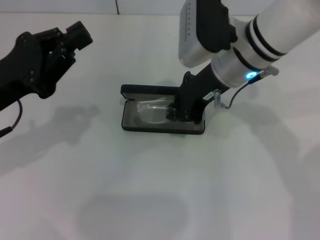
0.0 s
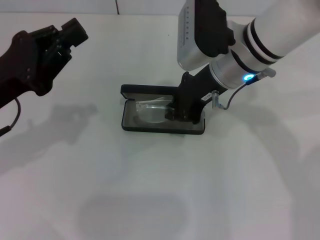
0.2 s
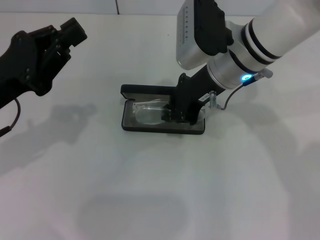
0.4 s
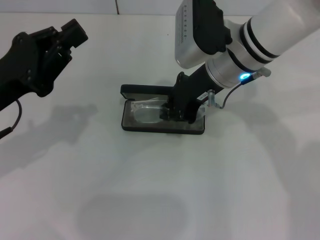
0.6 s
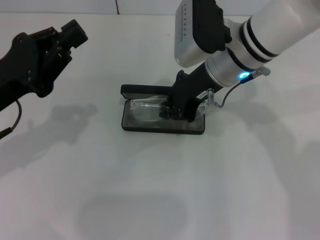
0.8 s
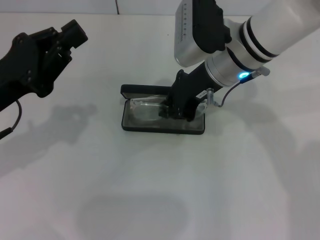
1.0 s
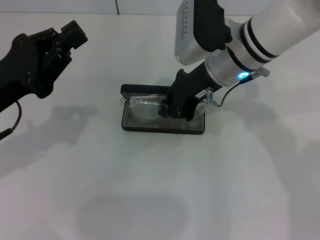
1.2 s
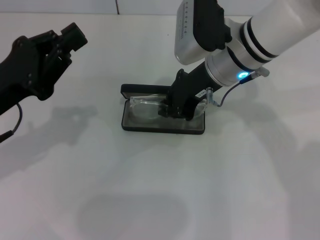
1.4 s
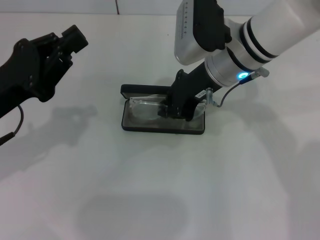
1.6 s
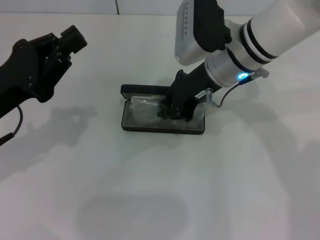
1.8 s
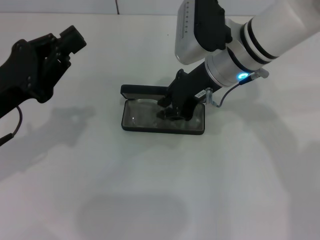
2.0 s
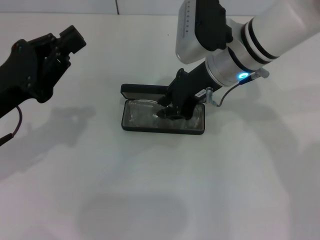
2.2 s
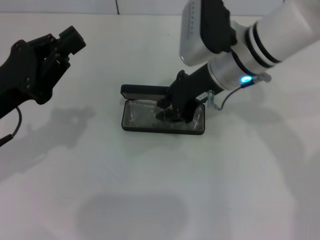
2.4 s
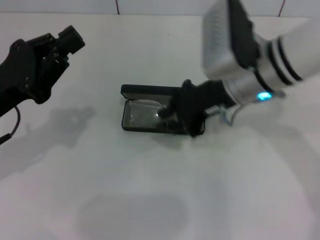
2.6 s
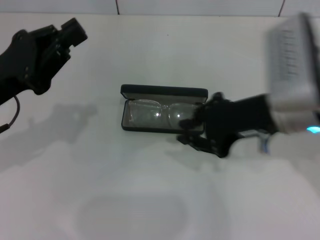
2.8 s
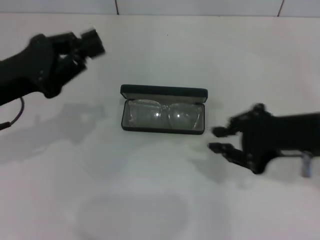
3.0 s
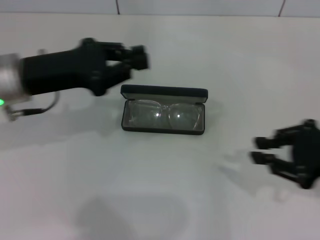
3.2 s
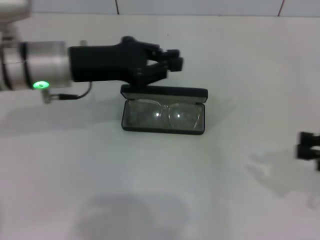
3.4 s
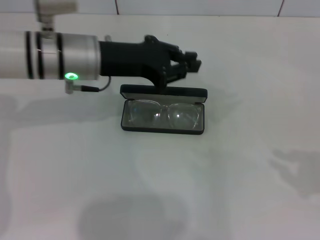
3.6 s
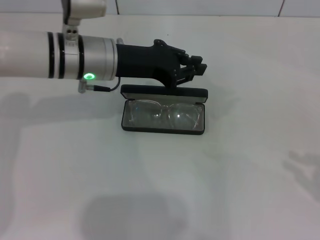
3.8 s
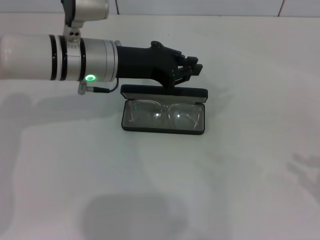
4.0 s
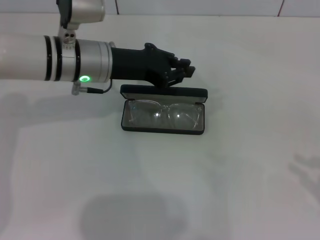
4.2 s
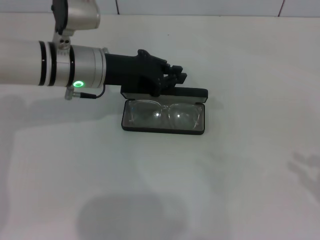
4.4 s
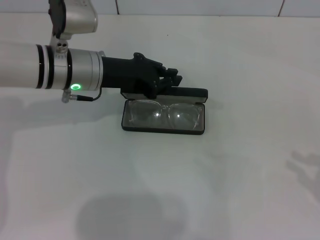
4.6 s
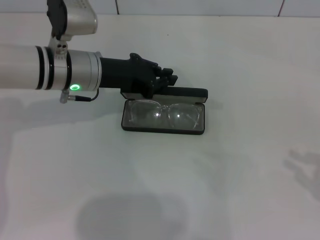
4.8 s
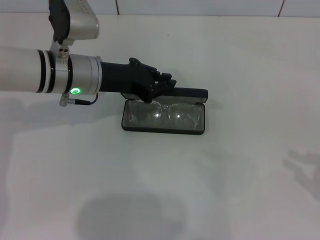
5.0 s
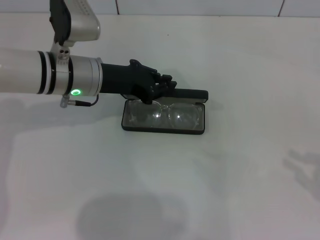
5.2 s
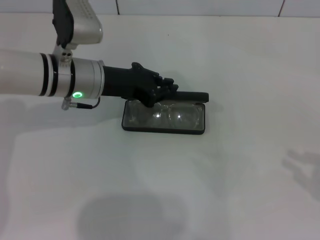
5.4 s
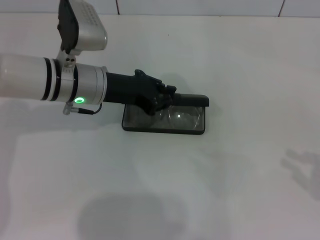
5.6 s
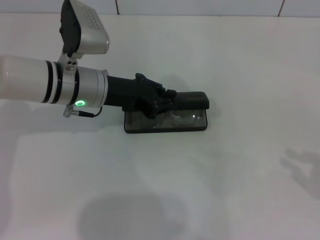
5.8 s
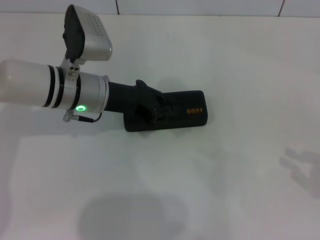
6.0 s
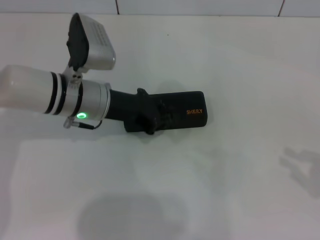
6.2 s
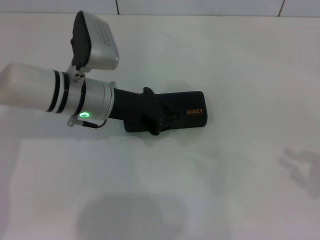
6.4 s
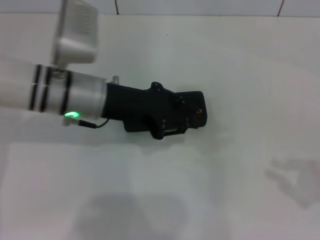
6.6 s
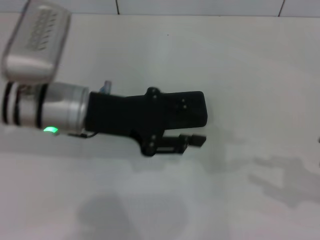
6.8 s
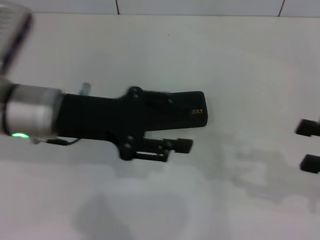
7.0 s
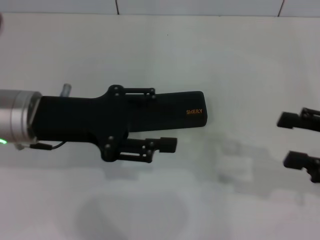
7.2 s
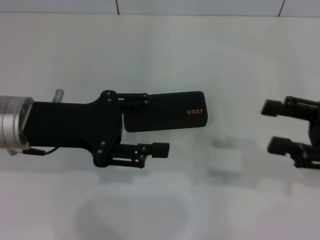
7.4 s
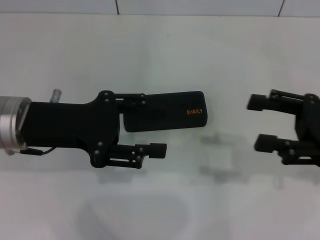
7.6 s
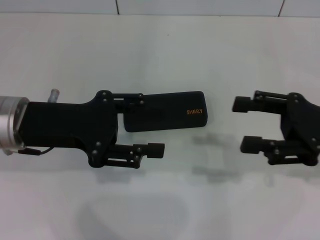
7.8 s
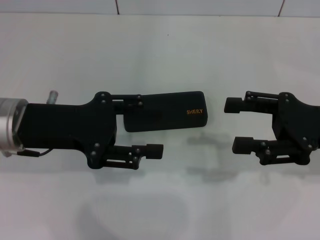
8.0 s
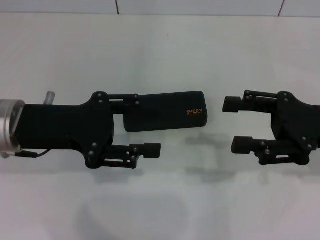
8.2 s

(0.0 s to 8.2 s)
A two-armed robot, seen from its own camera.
Step, 0.0 s - 2.4 s: Put the glasses into the case with your right hand.
Step, 2.6 s - 6.4 s: Close the glasses case with your left hand.
0.0 s - 1.6 s: The two grippers keep their place.
1.6 s - 3.2 s: The right gripper heads to the right and backward, covering about 25 cm, while the left gripper goes about 5 cm forward.
3.2 s - 5.0 s: The left gripper travels to the right and forward by about 10 cm. Meanwhile the right gripper shifts approximately 15 cm to the right and backward.
5.0 s - 6.6 s: The left gripper moves approximately 5 cm.
6.6 s - 8.2 s: The right gripper moves to the left and forward, roughly 15 cm, and opens up. Meanwhile the left gripper travels to the left and backward by about 10 cm, and opens its fingers.

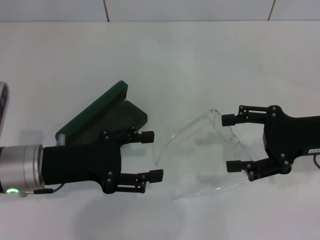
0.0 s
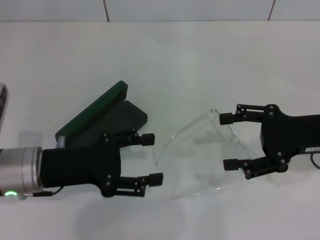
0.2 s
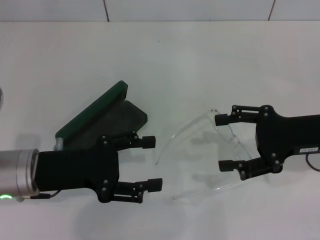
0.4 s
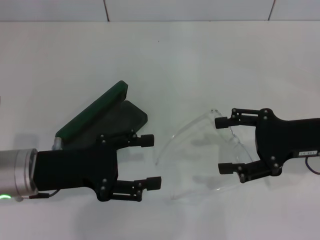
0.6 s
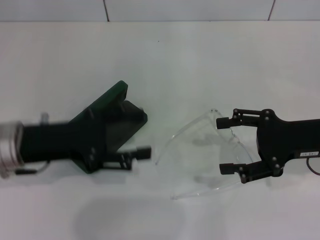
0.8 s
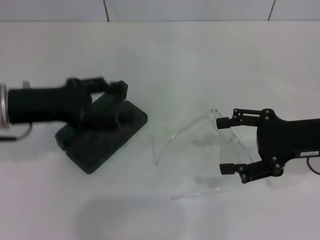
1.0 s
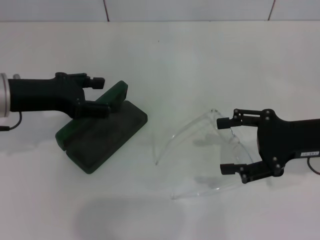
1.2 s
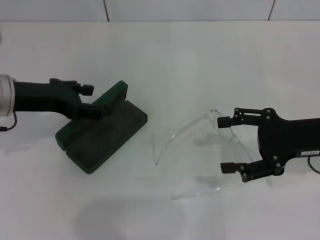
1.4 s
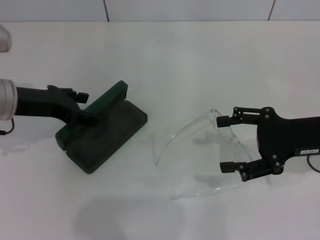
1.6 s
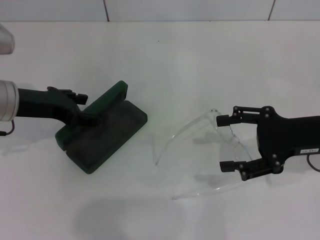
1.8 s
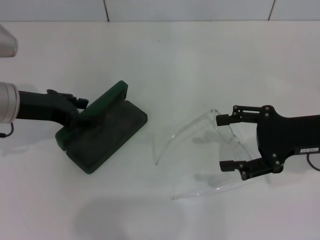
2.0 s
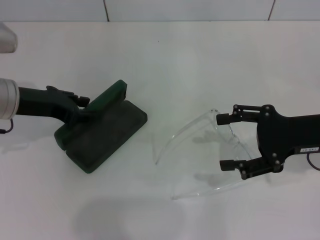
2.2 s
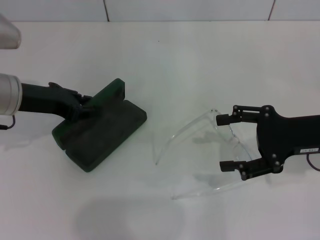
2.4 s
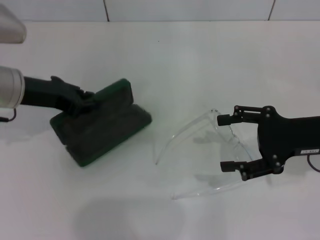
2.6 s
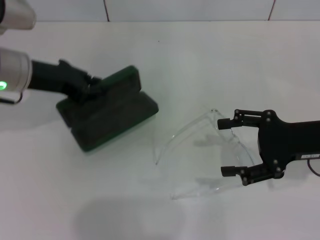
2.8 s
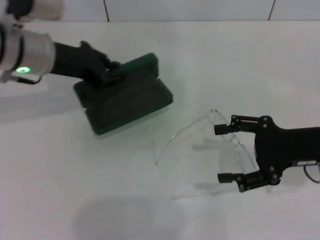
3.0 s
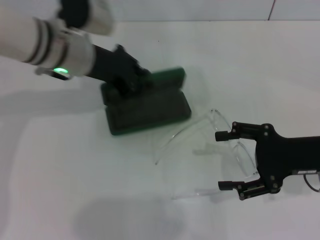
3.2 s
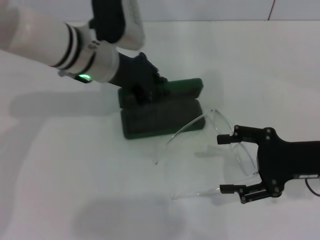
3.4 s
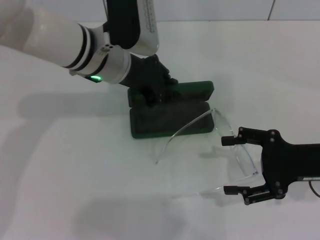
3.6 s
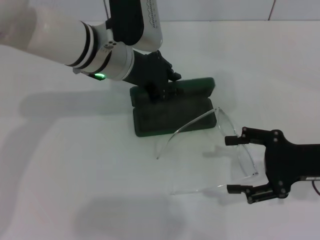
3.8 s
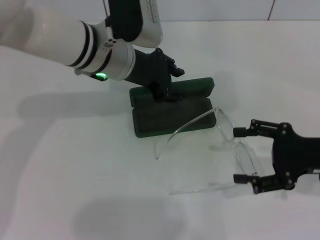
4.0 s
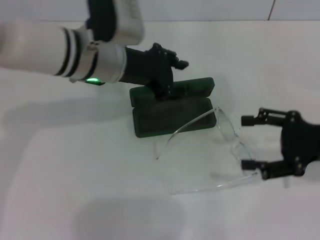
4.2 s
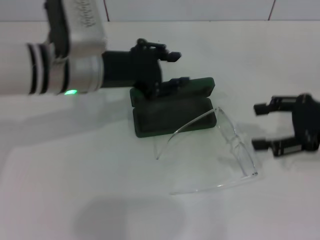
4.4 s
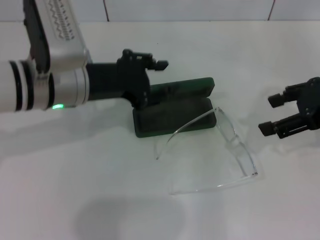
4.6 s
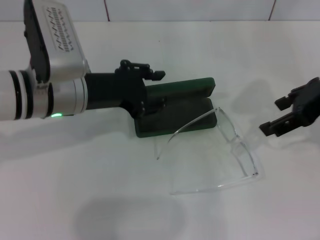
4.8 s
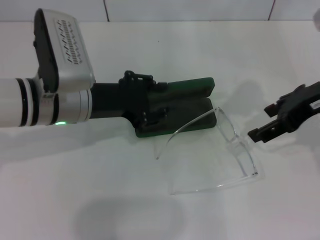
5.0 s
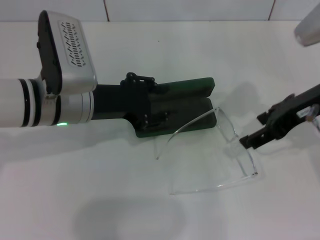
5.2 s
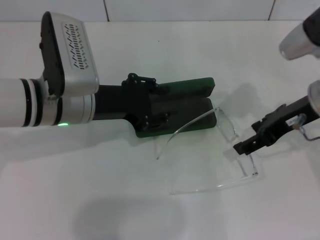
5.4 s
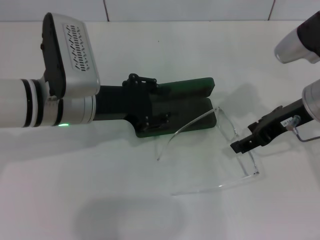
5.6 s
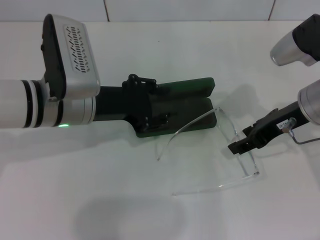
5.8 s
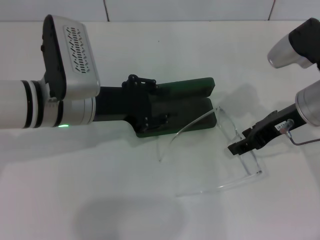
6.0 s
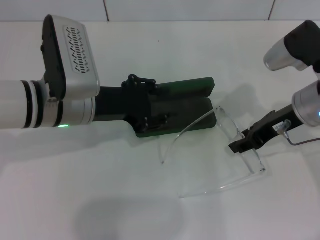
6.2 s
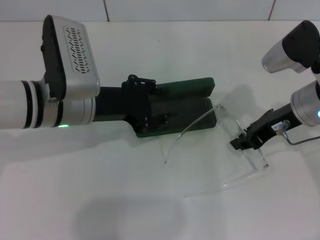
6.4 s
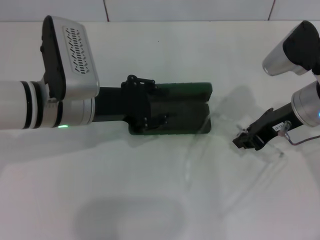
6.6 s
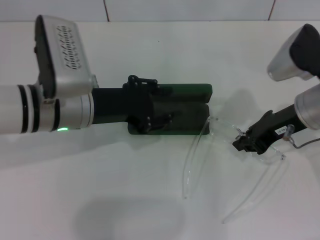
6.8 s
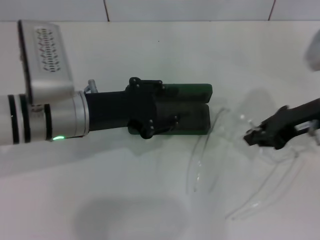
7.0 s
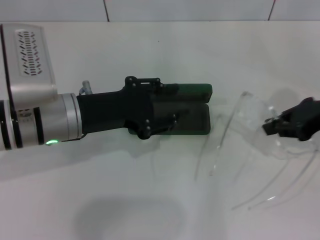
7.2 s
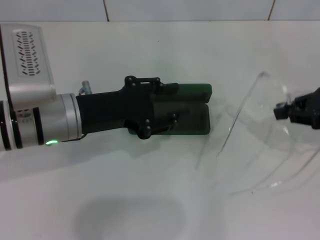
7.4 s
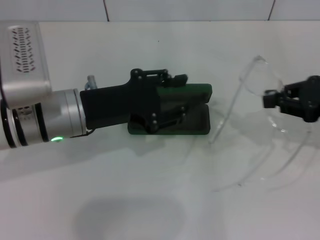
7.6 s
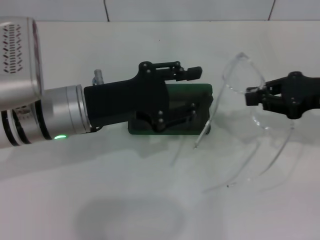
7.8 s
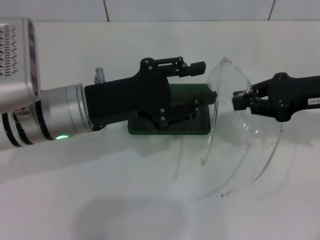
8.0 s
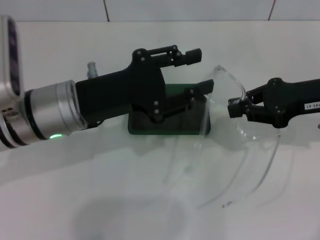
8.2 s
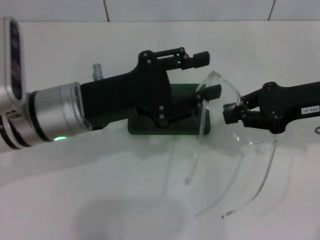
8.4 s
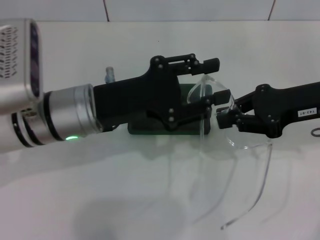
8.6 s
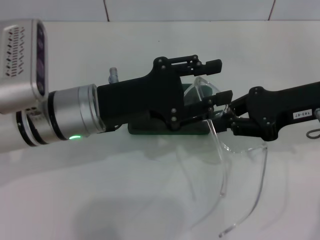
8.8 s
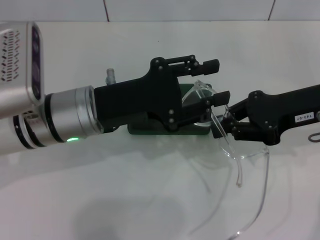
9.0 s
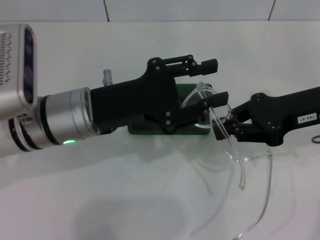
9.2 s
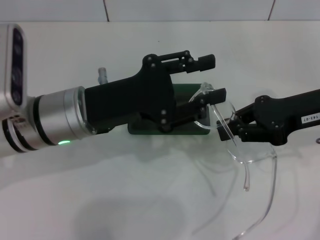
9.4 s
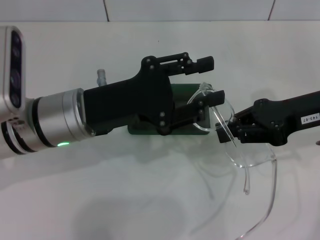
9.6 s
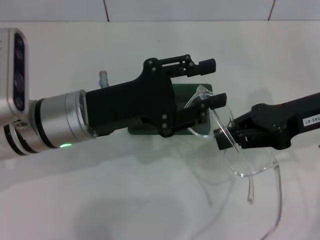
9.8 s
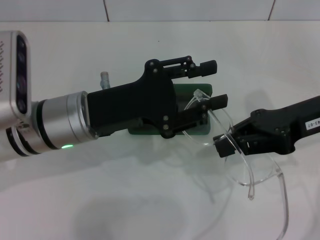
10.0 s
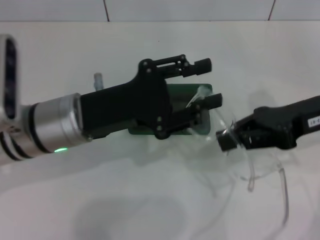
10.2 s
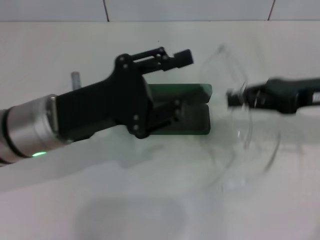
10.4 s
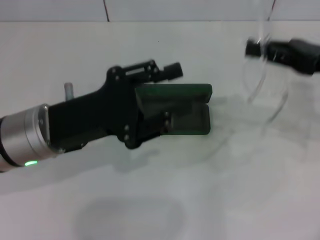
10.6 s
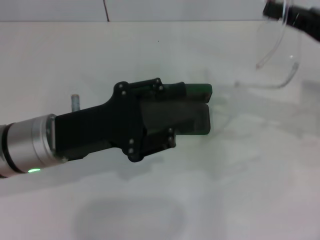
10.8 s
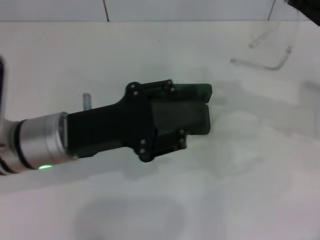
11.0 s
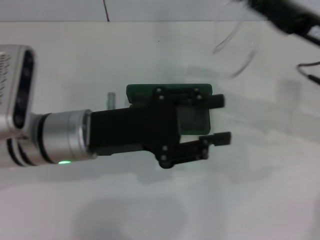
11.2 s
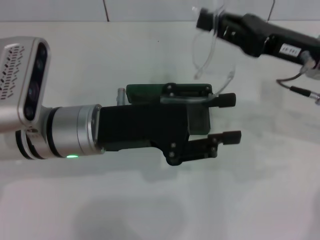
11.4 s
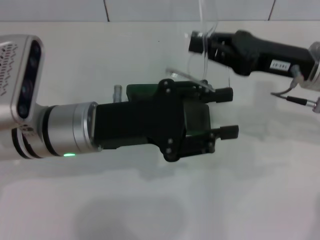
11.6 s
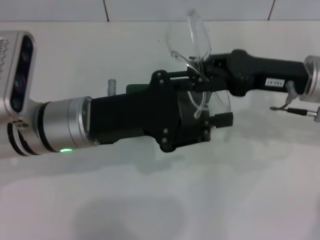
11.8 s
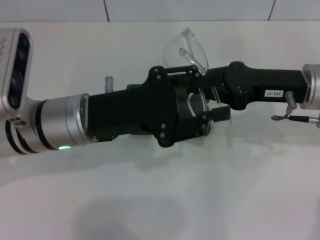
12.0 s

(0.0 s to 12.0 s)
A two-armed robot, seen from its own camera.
Step, 0.0 s - 2.4 s: Grab the glasses case with your left hand.
Step, 2.6 s - 3.6 s: Place the glasses case in the center of the table with your left hand.
Step, 4.0 s - 6.6 s: Grab the eyeglass frame with your right hand.
0.0 s - 1.6 s: The left gripper heads forward and upward, covering roughly 10 cm.
1.6 s - 3.0 s: The left gripper moves to the right and forward, about 10 cm, and closes.
3.0 s - 4.4 s: The right gripper travels upward by about 5 cm; the left gripper moves to the right, some 5 cm, and opens.
4.4 s - 6.0 s: The right gripper goes approximately 10 cm to the left.
6.0 s - 7.6 s: The right gripper goes some 10 cm to the right, and closes up.
7.6 s - 9.0 s: The right gripper travels to the left by roughly 5 cm.
10.4 s - 12.0 s: The right gripper heads to the left, covering some 5 cm.

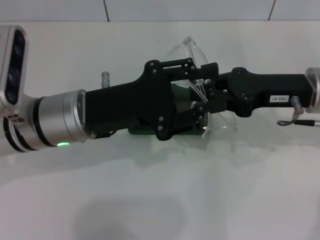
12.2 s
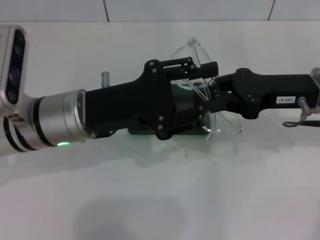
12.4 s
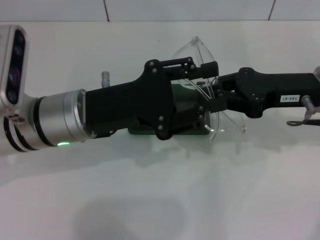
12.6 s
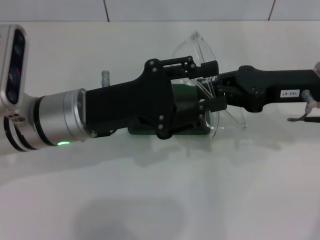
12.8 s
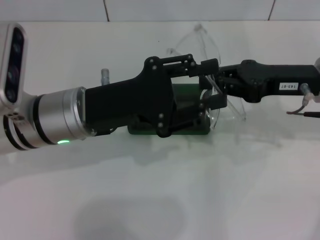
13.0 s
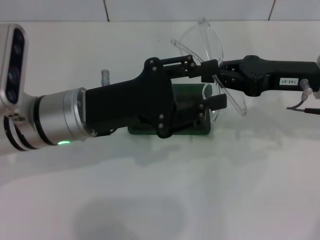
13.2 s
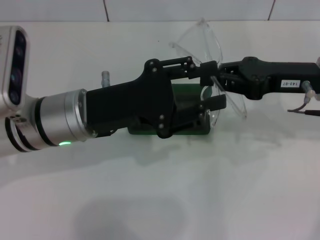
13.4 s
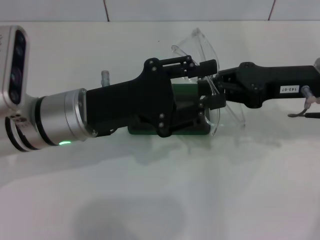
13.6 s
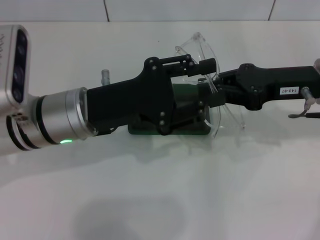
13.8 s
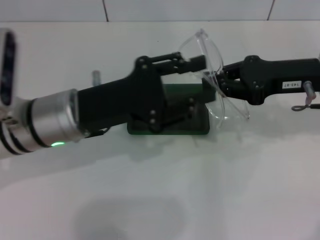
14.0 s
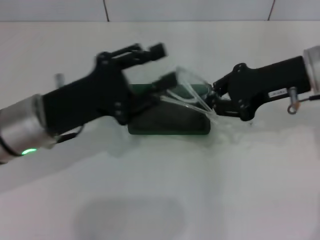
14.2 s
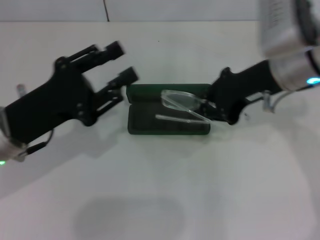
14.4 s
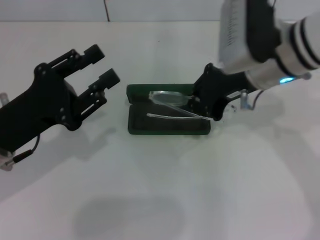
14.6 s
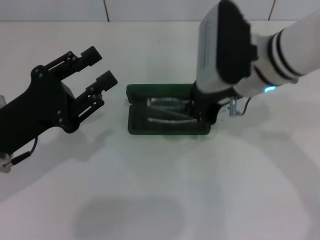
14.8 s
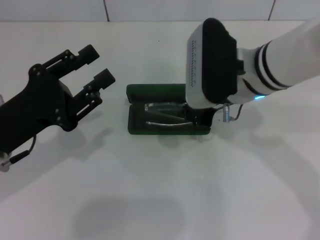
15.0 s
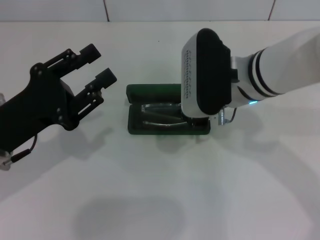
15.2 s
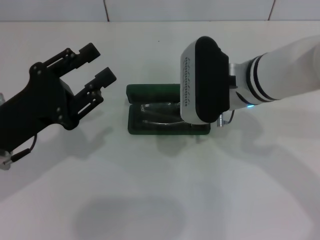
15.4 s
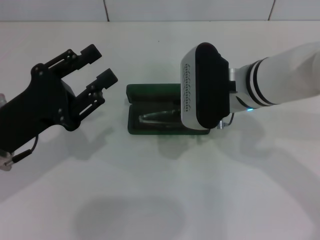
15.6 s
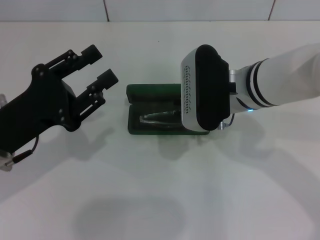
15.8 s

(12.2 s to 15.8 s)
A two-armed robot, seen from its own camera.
12.2 s - 14.0 s: The grippers move only a little.
14.0 s - 15.8 s: The left gripper shifts some 10 cm to the left. Meanwhile the right gripper moves to the left, about 15 cm.
